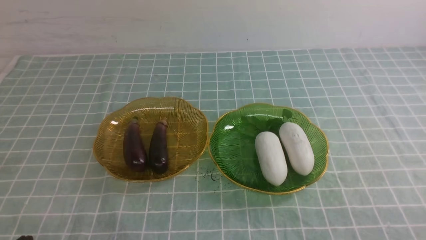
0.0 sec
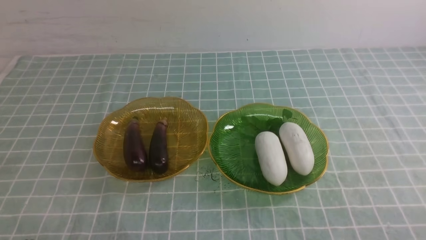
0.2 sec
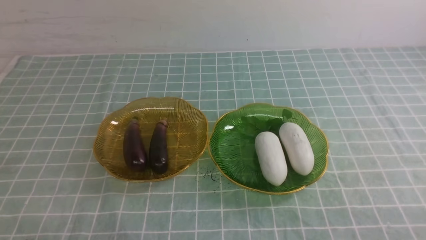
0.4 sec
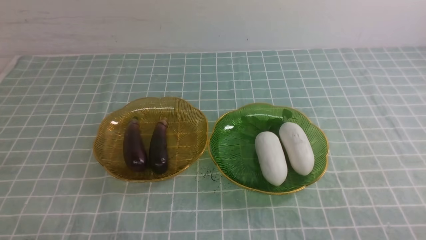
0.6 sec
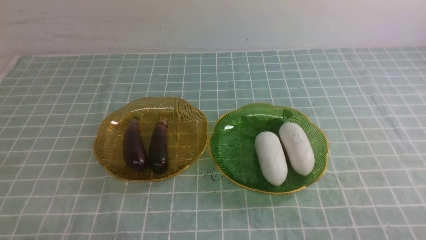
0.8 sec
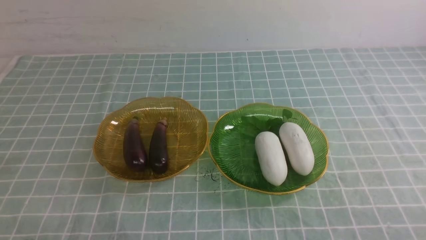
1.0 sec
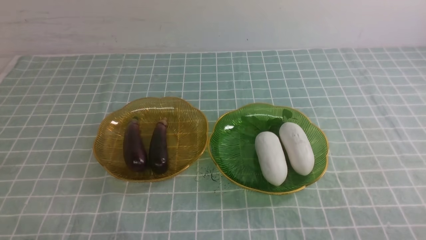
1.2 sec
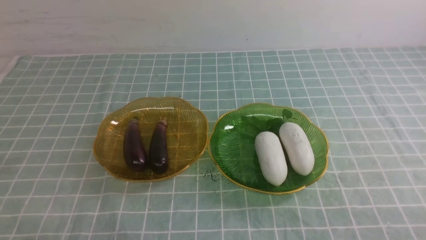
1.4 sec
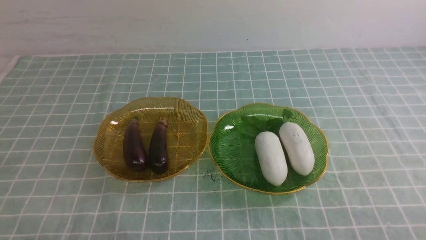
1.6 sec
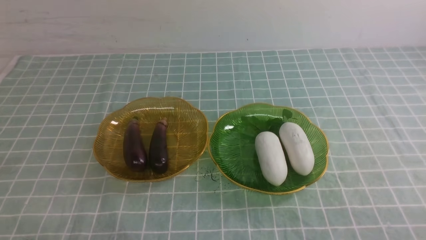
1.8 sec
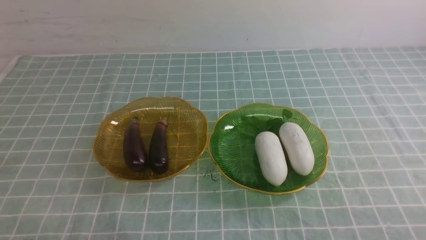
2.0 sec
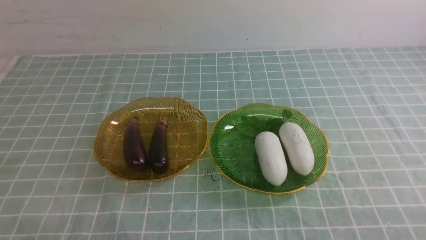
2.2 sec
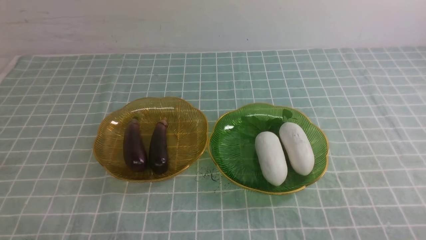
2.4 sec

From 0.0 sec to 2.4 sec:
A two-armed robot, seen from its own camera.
From 0.0 sec to 2.4 sec: The two grippers keep their place.
